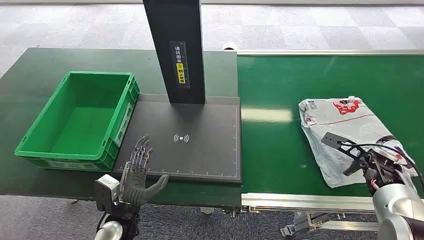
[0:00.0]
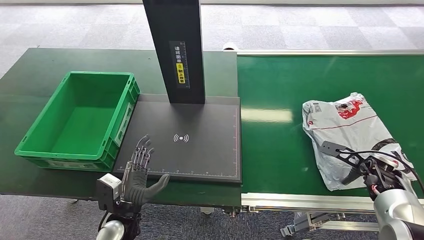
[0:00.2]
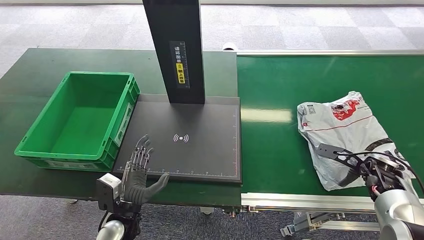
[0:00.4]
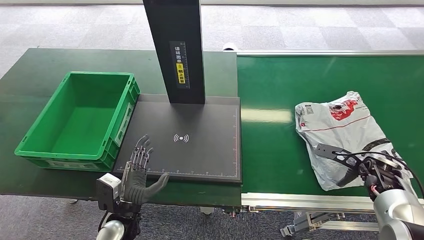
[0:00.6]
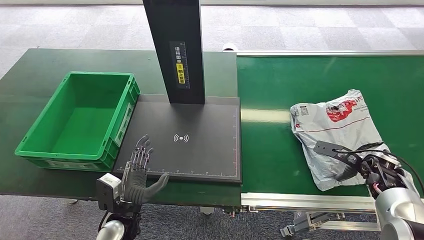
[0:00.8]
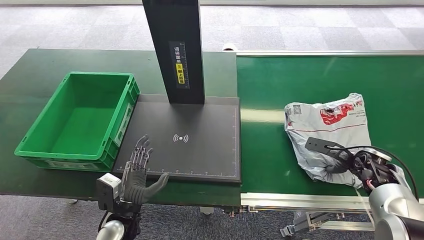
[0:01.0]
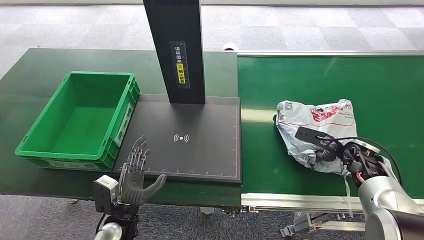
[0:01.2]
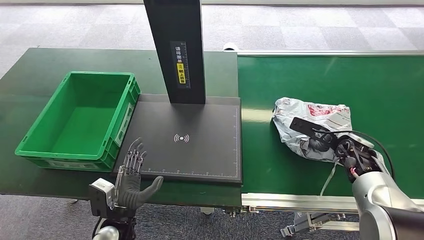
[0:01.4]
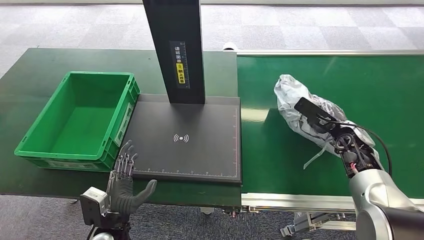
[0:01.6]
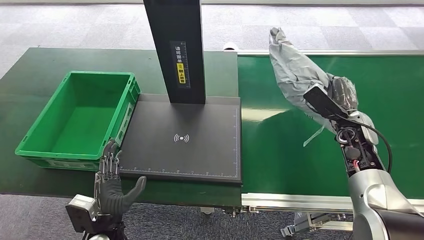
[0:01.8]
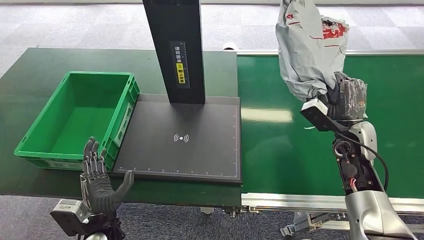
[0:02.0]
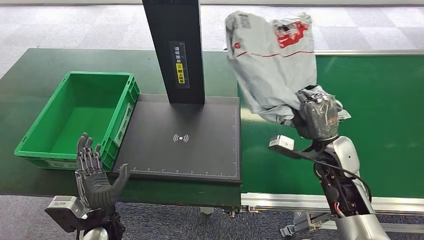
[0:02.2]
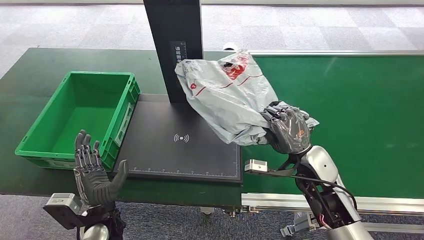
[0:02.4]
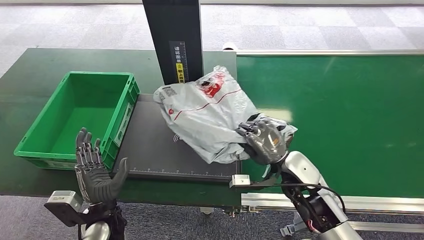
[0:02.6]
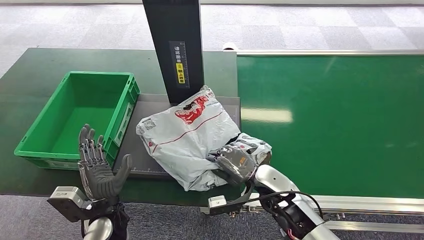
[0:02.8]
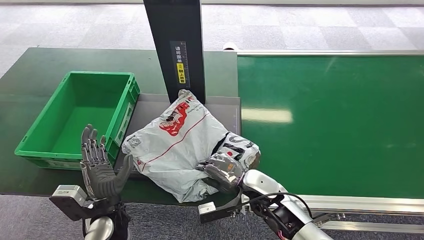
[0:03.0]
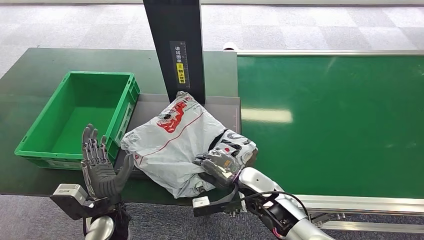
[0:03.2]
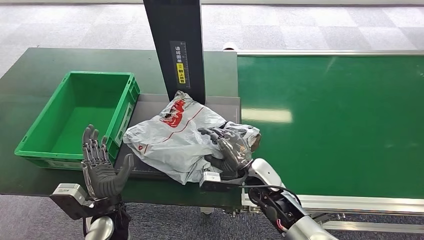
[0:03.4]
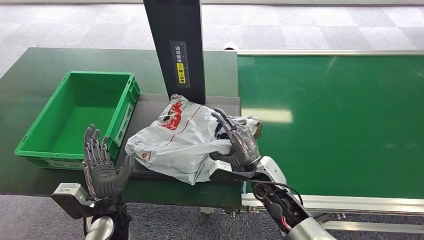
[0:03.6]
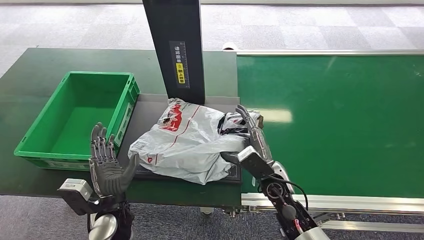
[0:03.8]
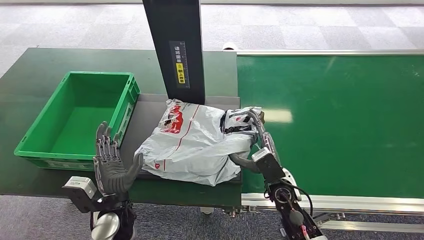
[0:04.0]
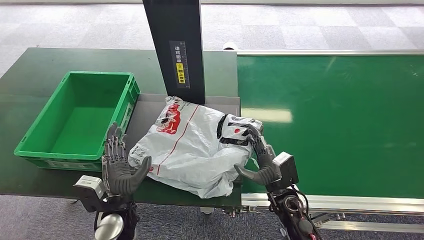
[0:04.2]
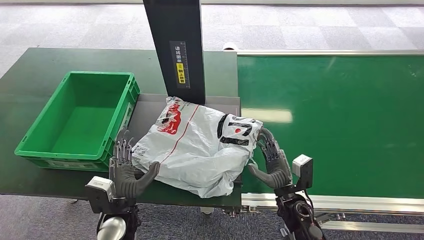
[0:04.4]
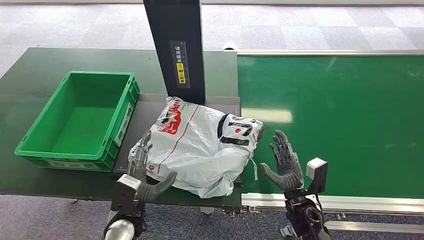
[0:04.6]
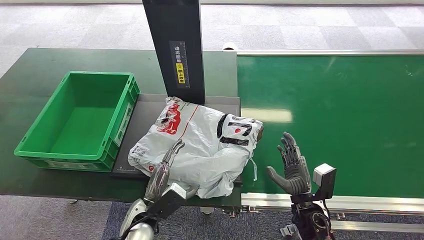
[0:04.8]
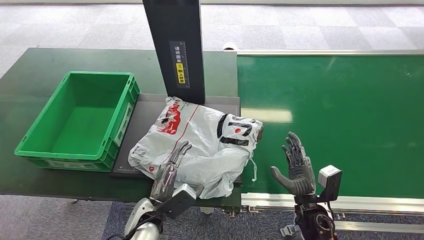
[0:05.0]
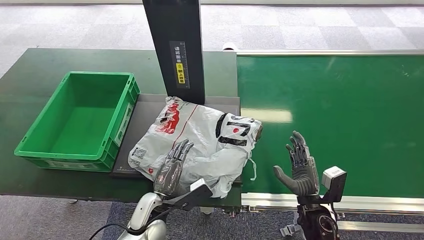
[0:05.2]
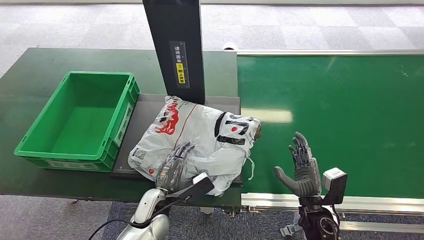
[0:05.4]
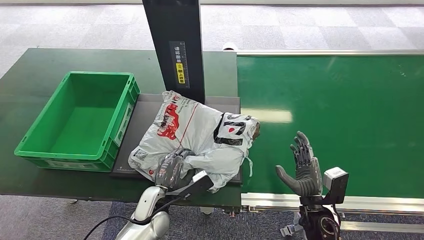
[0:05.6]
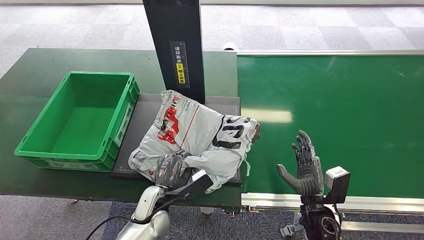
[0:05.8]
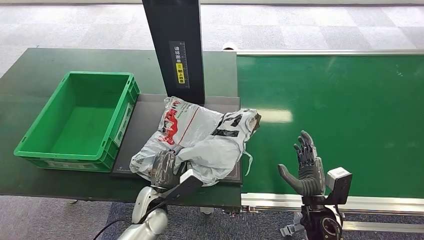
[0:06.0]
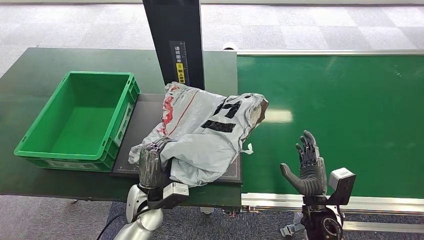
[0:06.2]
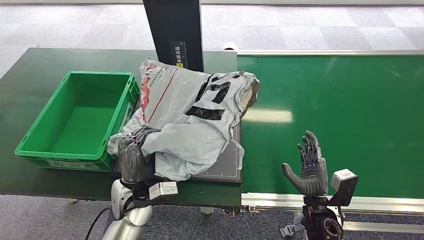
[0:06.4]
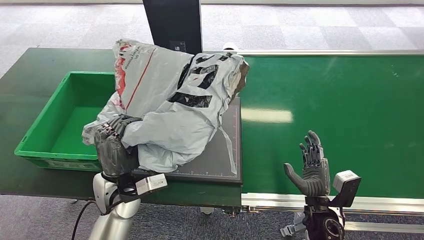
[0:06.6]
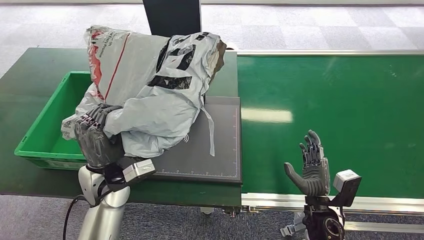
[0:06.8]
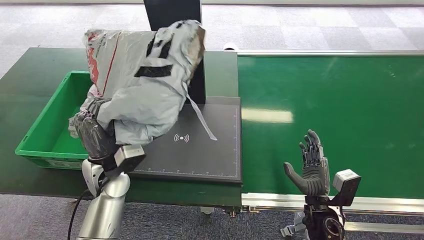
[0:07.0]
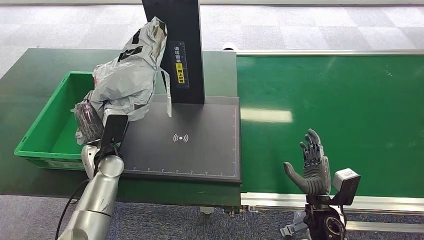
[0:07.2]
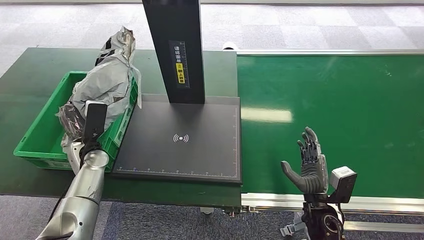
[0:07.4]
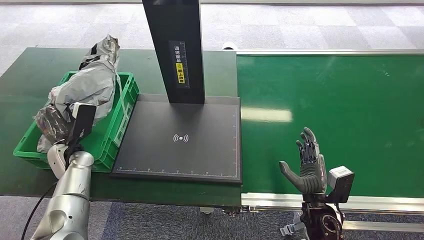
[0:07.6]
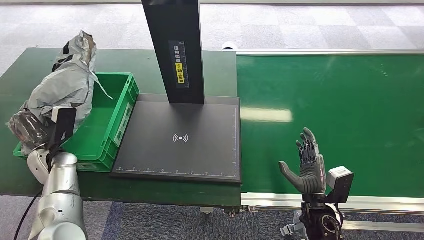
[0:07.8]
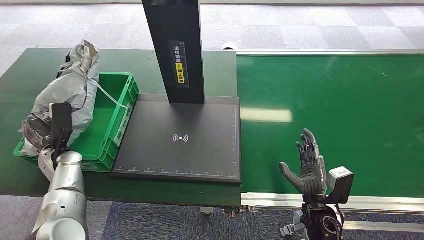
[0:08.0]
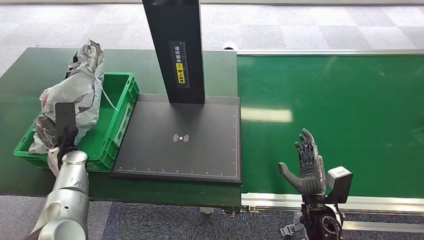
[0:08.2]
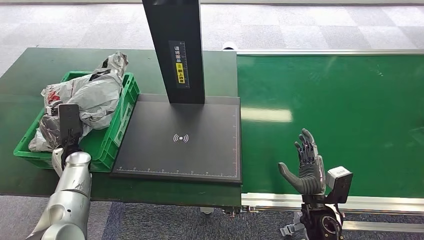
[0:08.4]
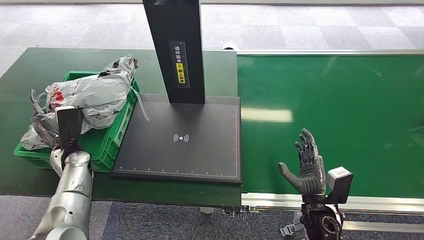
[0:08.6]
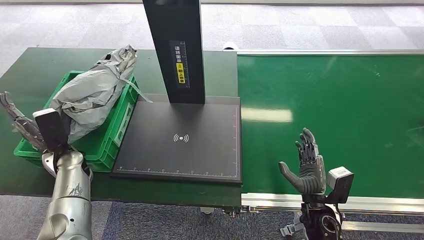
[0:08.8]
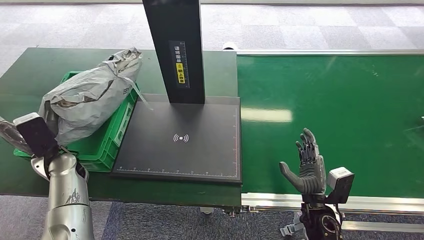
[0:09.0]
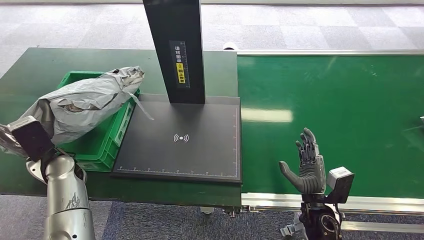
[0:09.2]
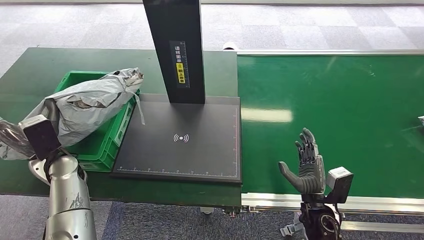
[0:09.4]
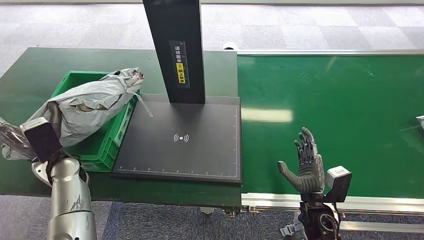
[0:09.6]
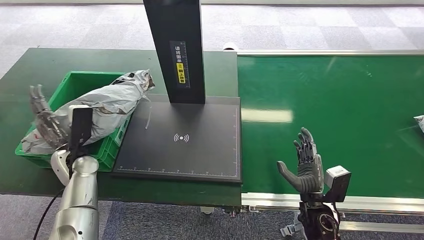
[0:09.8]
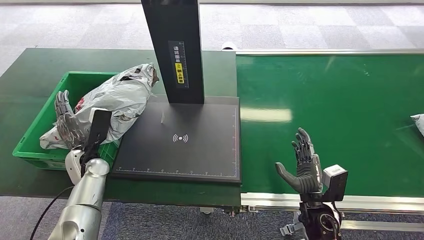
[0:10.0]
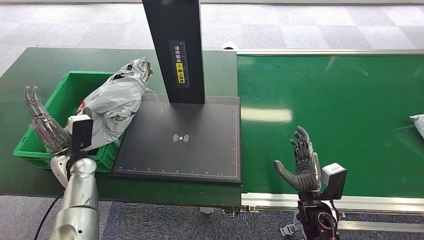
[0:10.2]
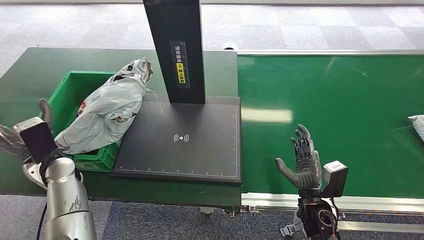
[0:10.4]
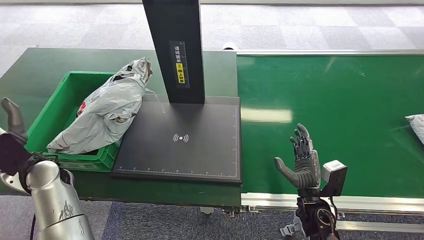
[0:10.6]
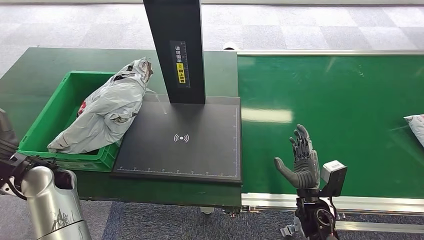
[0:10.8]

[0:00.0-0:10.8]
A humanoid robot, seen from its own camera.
Step, 0:00.0 to 0:01.6: Pick up the package from the conveyor belt.
Step, 0:02.2 to 0:04.4: Place the package onto the inbound machine.
Step, 0:04.6 to 0:07.2: Pick up the package from the inbound machine.
Step, 0:07.4 to 0:10.8: Place the package into the parcel locker.
0:03.0 to 0:04.6: The right hand goes roughly 10 cm to the right.
0:04.6 to 0:06.2: The left hand shifts by some 5 cm.
0:07.8 to 0:09.2: The left hand changes place by roughly 5 cm.
0:09.2 to 0:10.8: The left hand ends up about 5 cm from where it was.

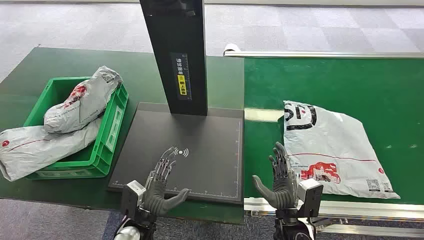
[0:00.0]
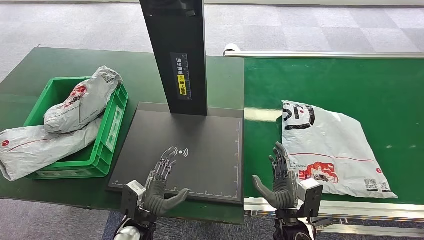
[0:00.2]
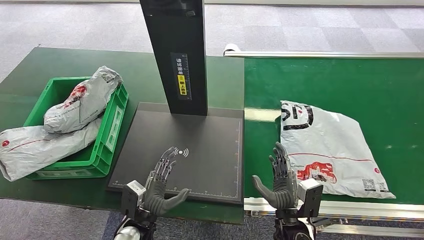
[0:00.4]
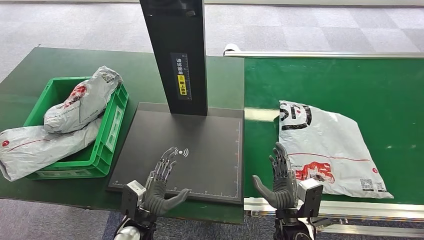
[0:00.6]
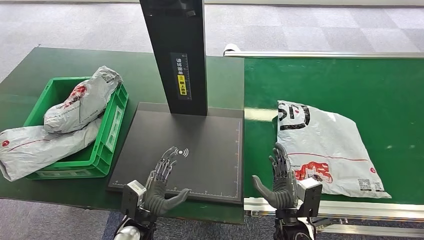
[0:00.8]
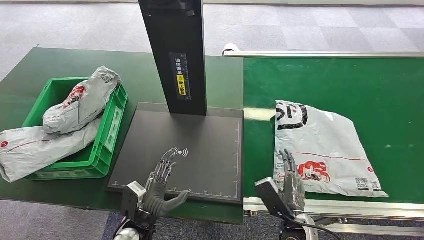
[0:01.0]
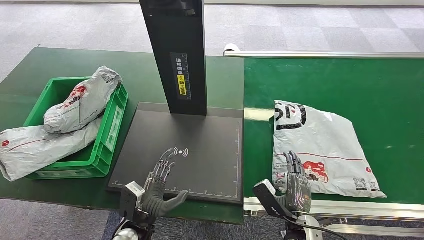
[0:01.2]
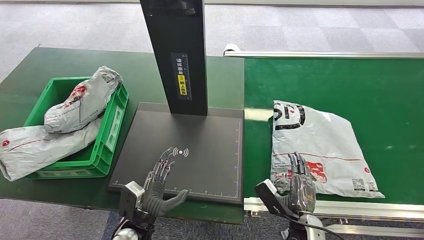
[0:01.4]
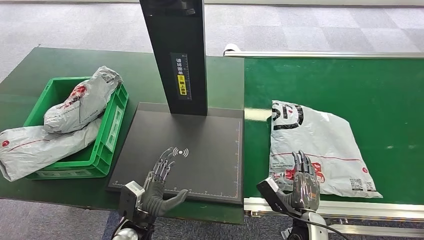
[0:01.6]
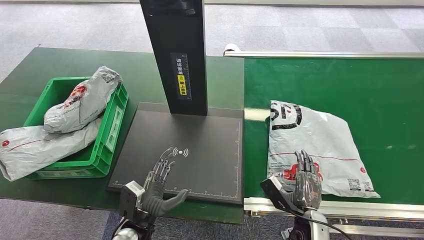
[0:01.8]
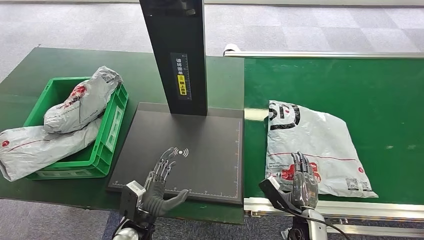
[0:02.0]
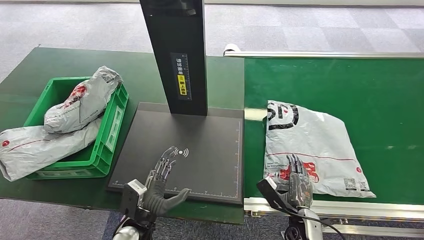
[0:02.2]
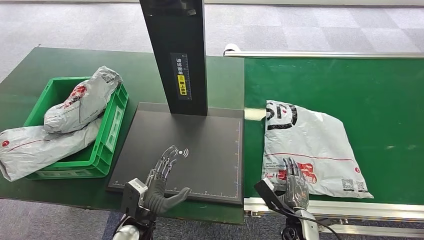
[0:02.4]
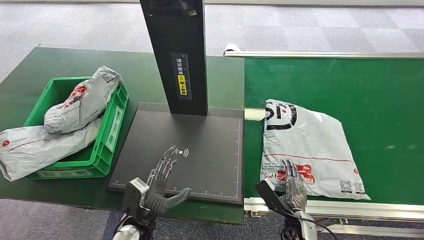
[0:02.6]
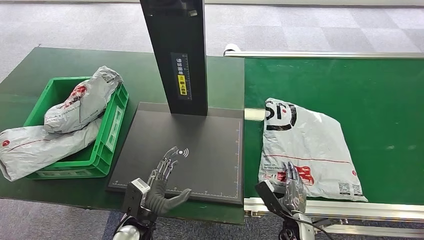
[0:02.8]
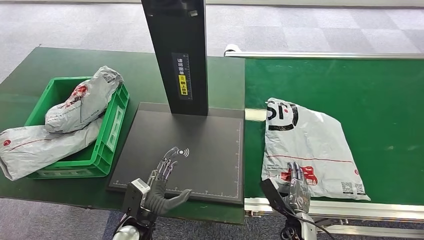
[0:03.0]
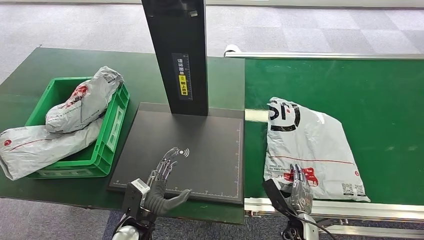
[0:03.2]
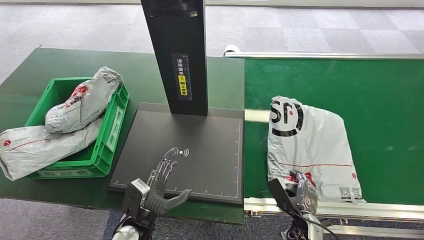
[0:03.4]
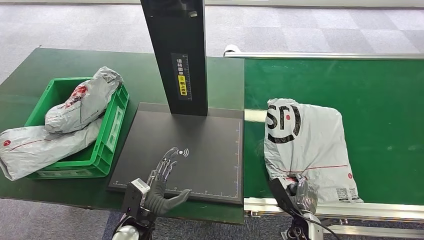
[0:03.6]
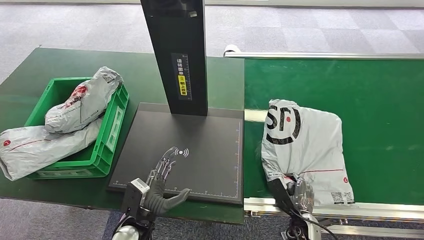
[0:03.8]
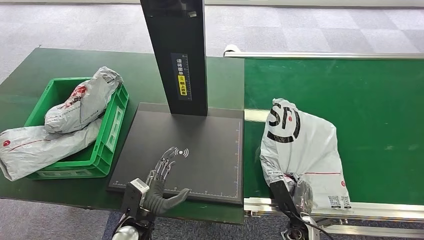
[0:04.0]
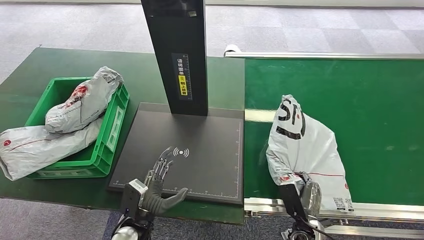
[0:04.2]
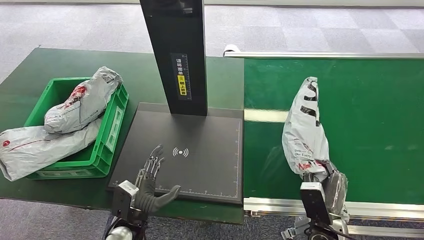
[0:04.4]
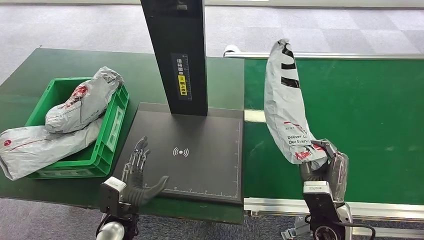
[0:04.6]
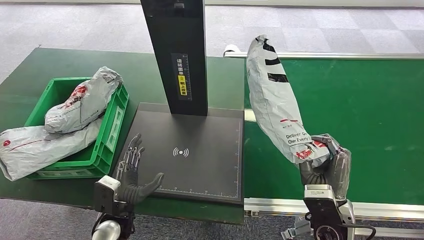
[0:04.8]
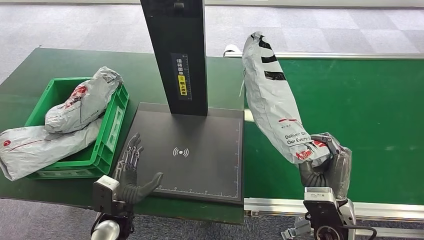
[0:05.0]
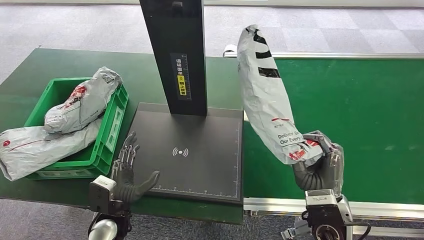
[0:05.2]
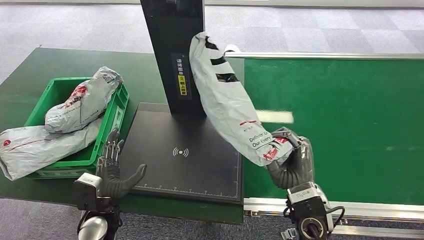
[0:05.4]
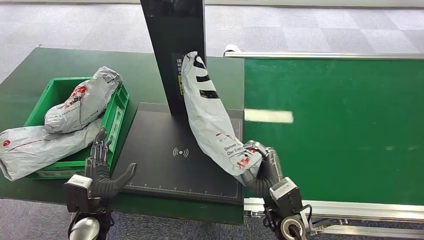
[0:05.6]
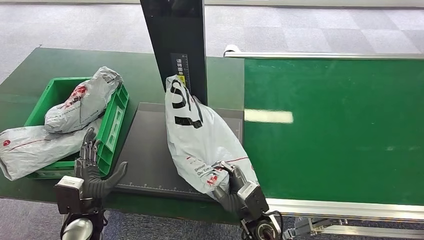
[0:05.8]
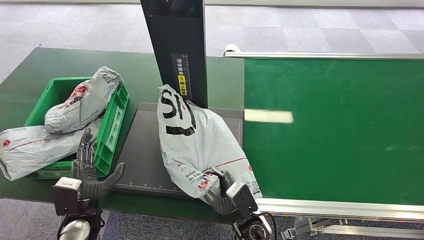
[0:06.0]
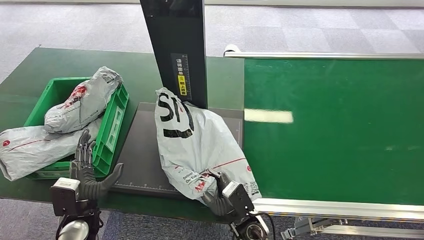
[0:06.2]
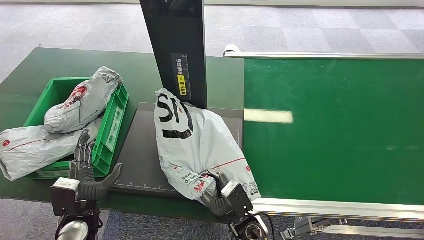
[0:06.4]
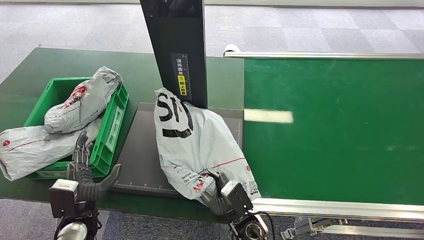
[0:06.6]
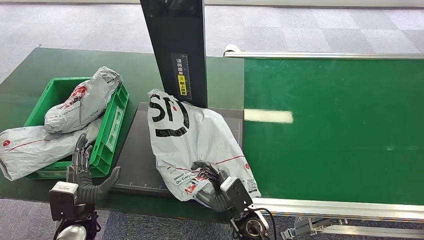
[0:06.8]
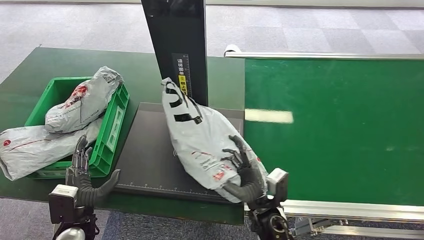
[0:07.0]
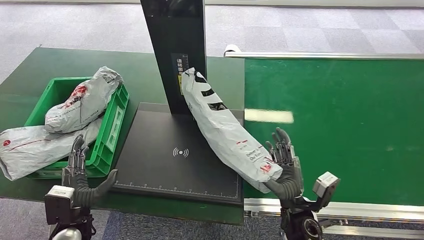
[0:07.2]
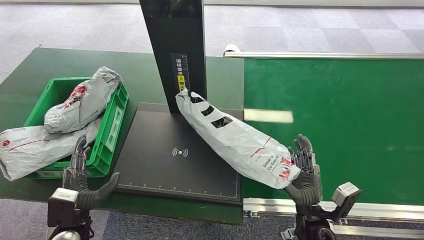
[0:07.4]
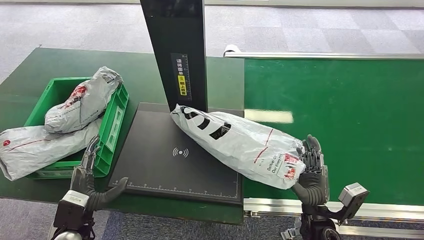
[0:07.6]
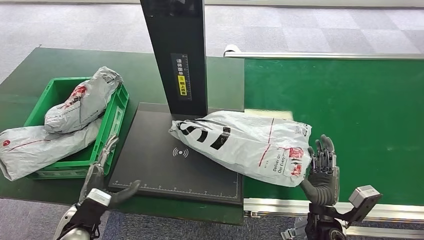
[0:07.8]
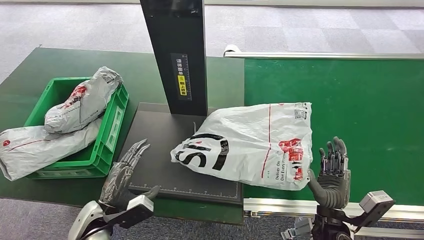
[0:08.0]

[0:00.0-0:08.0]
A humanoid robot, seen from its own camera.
Step, 0:00.0 to 0:04.8: Pick up the package from the conveyor belt.
0:01.6 to 0:03.2: The right hand travels downward by approximately 5 cm.
0:03.2 to 0:04.8: The right hand moves upward, about 20 cm.
